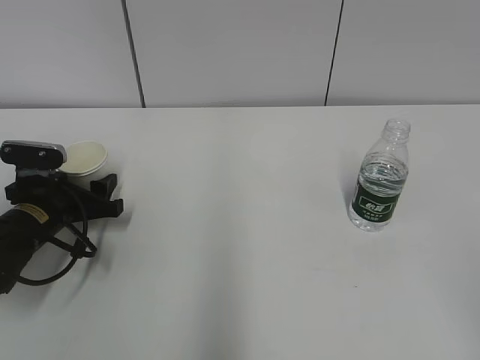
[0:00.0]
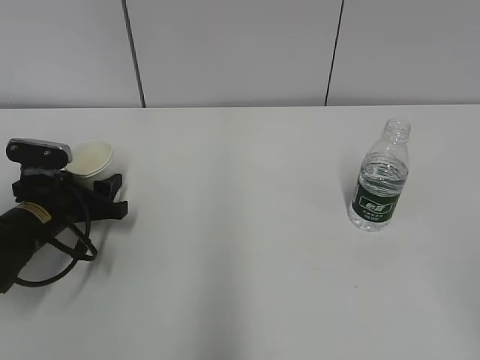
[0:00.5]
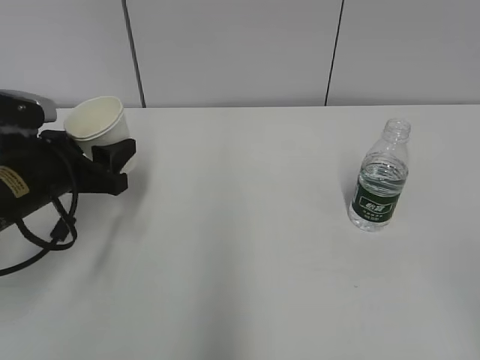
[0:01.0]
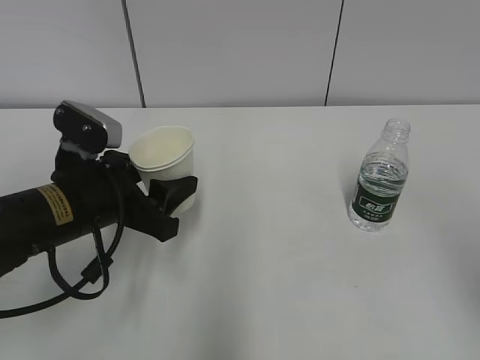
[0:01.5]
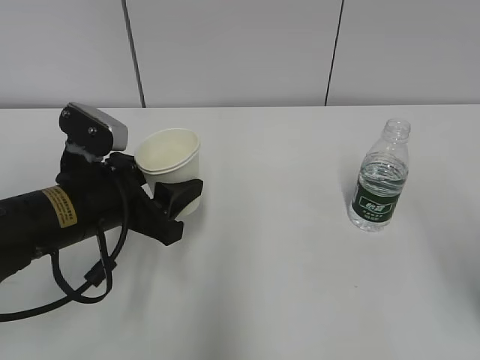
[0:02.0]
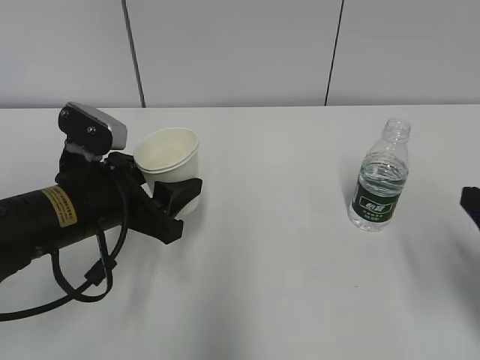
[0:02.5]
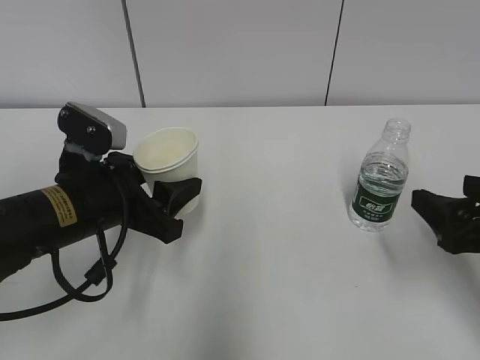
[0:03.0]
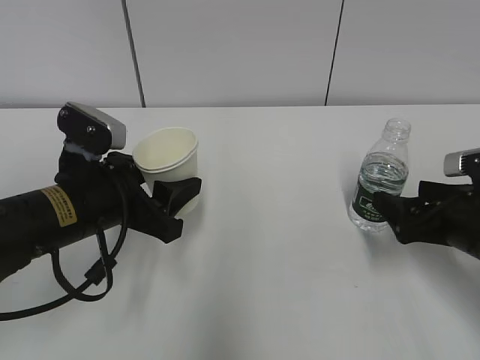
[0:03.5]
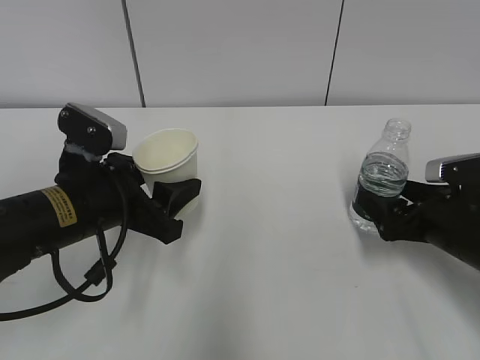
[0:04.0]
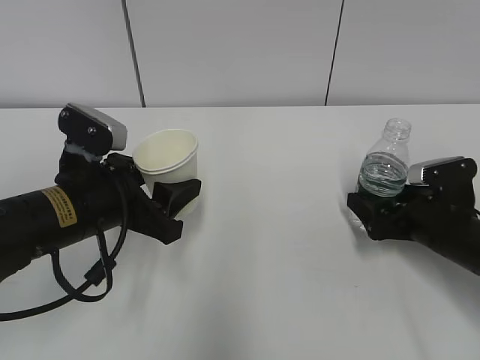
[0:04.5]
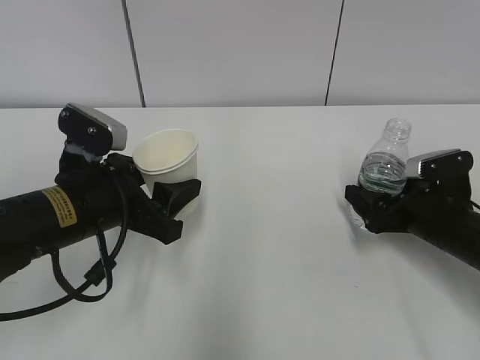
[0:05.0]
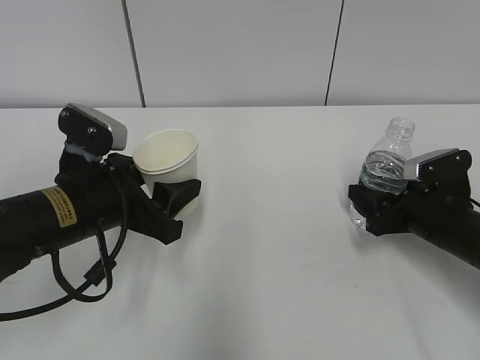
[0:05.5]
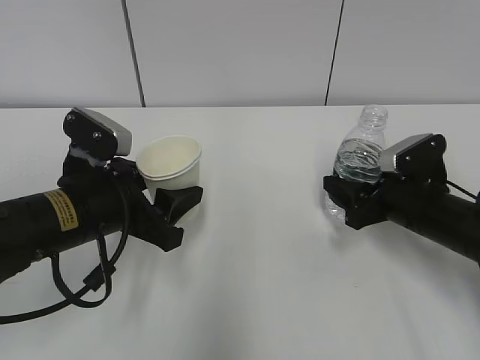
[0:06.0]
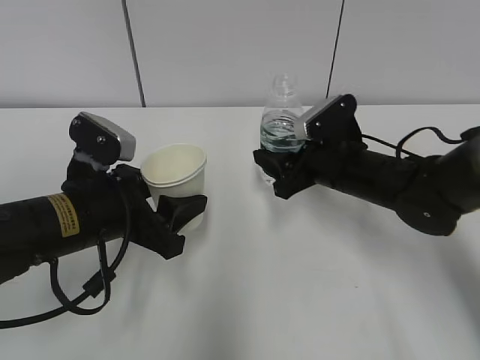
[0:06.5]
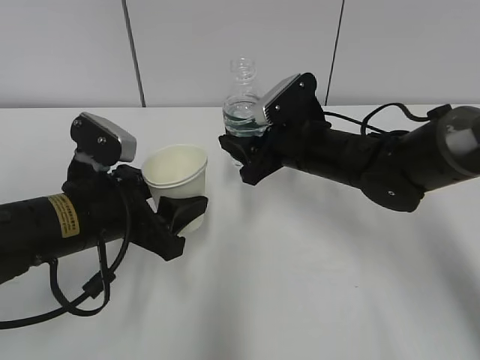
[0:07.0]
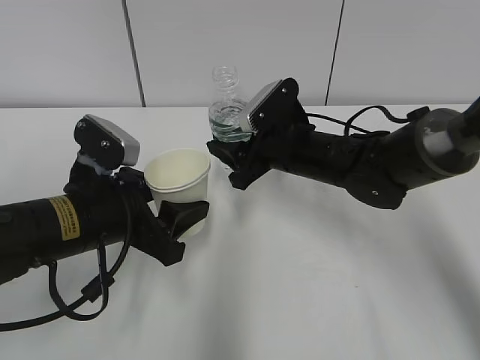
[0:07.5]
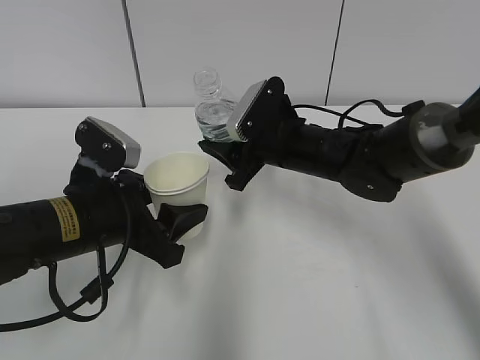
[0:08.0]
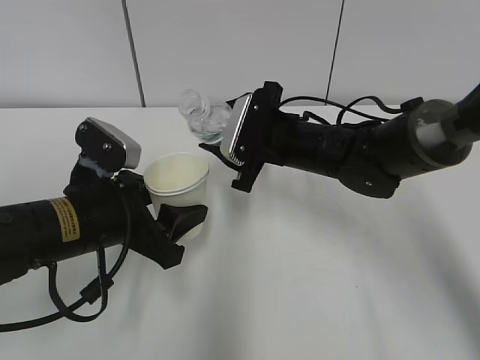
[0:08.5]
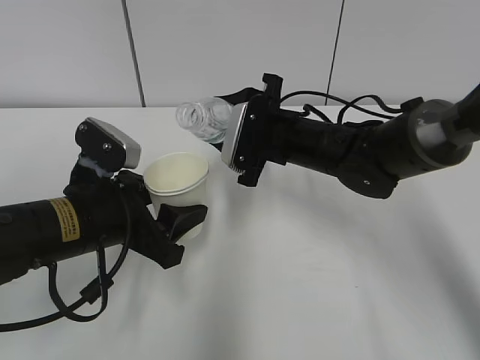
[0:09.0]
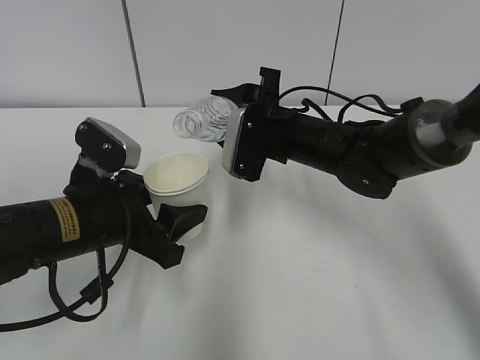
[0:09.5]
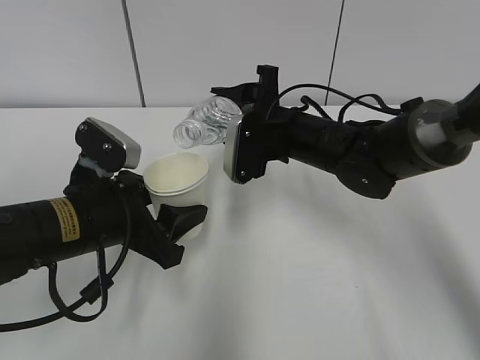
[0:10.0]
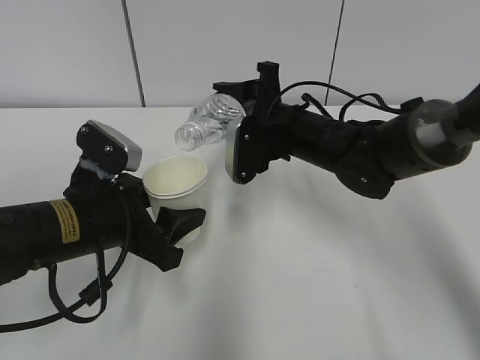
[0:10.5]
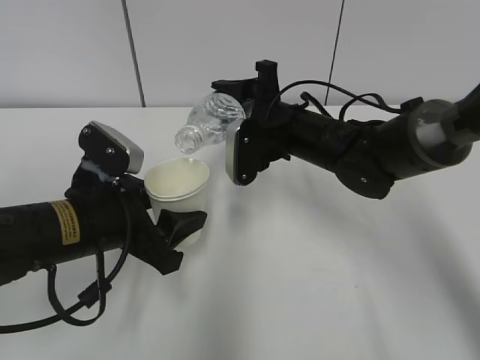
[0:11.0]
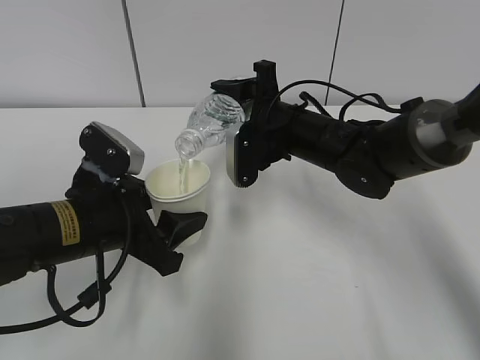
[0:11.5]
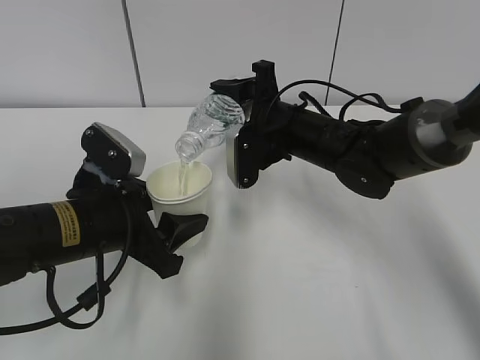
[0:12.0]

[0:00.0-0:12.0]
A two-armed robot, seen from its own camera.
Step, 0:00.0 to 0:03.5: Grab the water bottle with the right hand.
0:00.0 to 0:02.0: The left gripper moves to the right, upward and backward, roughly 15 cm; the right gripper shifts some 15 cm forward.
0:02.0 to 0:04.0: The right gripper goes some 25 cm forward and downward, and opens up.
0:04.0 to 0:06.0: The right gripper closes.
0:06.0 to 0:08.0: The right gripper heads to the left and forward, covering approximately 15 cm.
0:10.0 to 0:12.0: The grippers move only a little.

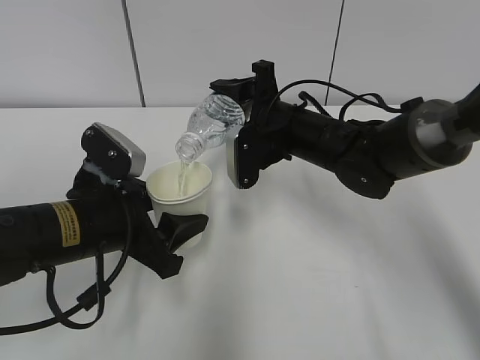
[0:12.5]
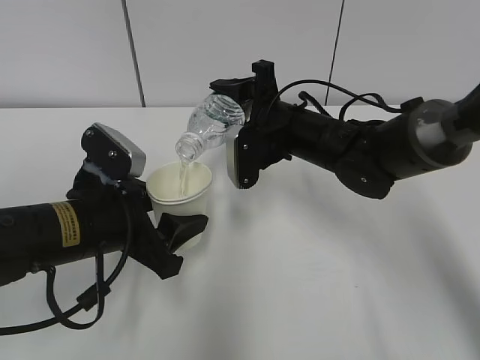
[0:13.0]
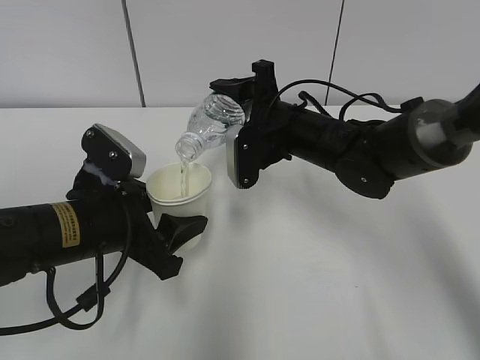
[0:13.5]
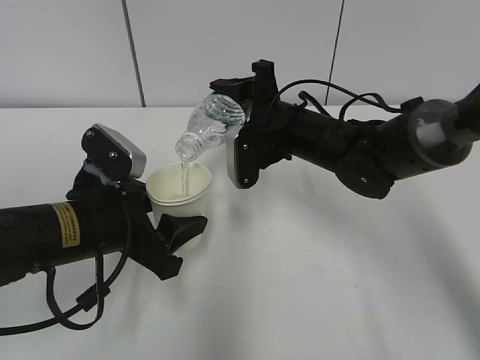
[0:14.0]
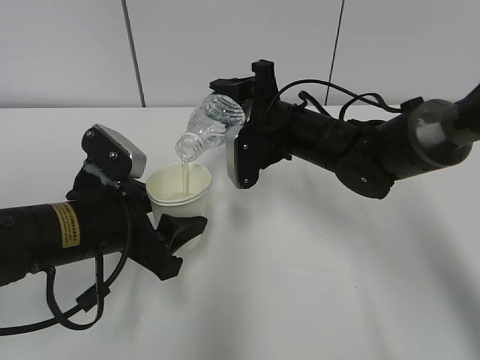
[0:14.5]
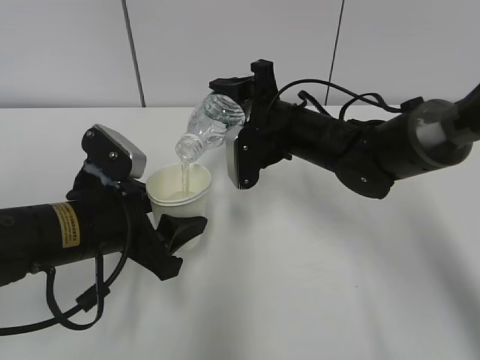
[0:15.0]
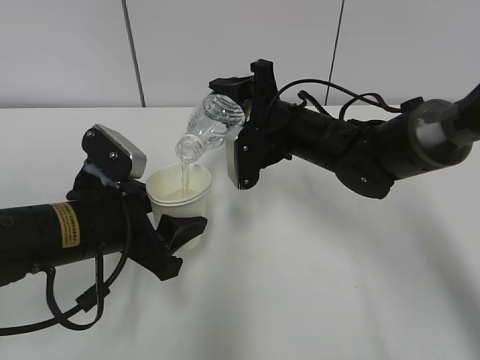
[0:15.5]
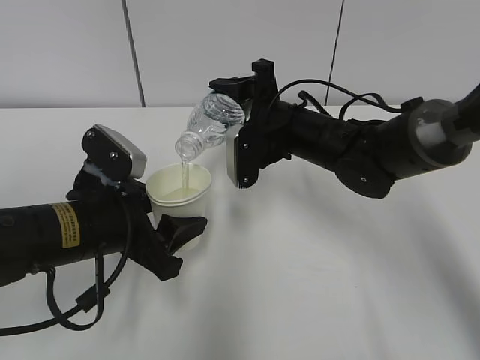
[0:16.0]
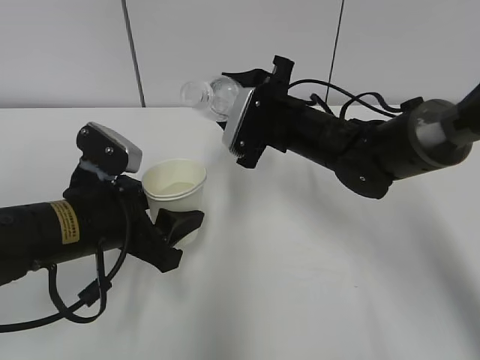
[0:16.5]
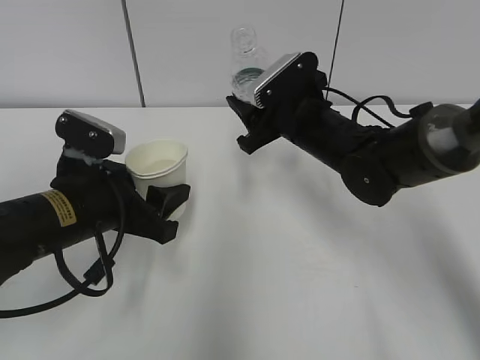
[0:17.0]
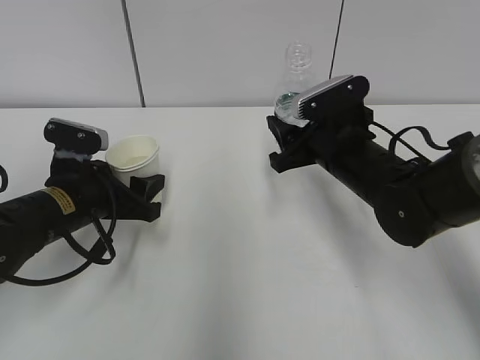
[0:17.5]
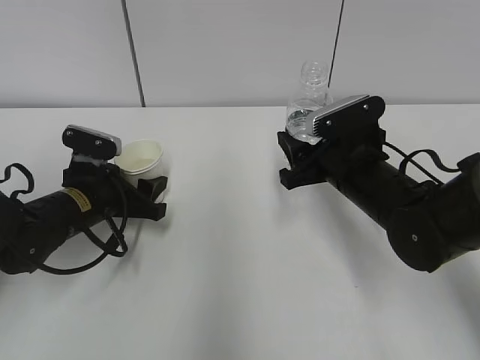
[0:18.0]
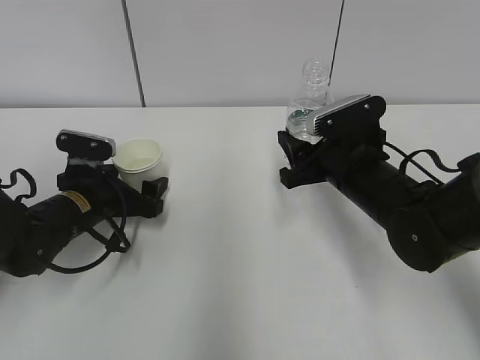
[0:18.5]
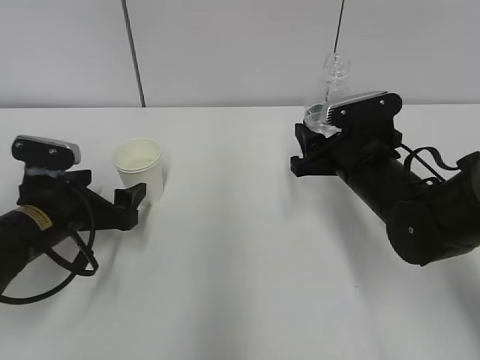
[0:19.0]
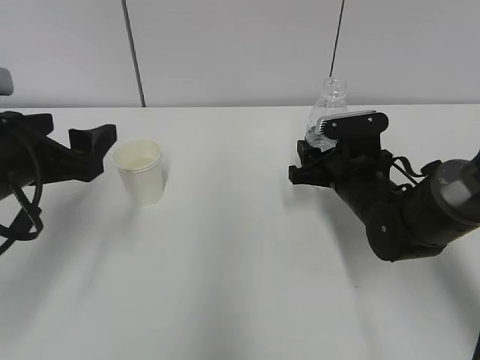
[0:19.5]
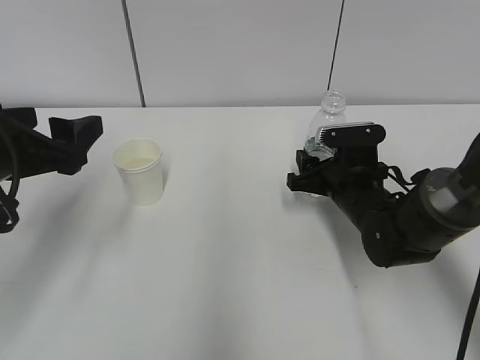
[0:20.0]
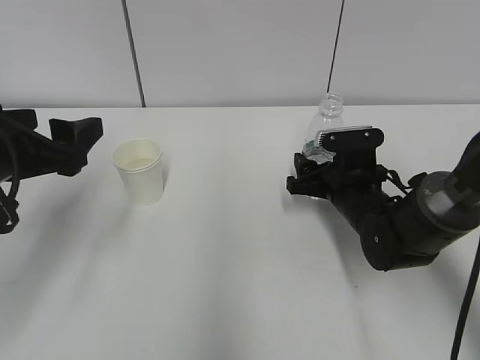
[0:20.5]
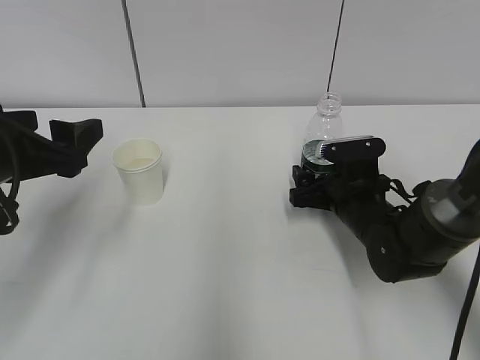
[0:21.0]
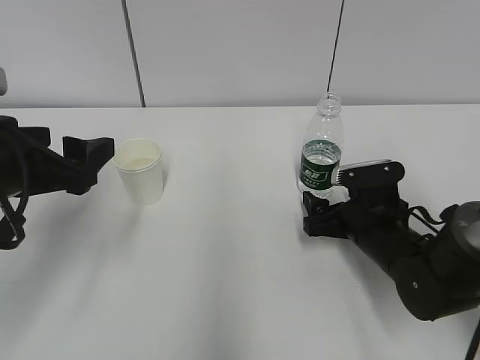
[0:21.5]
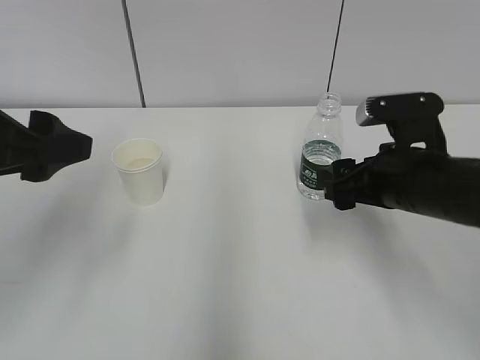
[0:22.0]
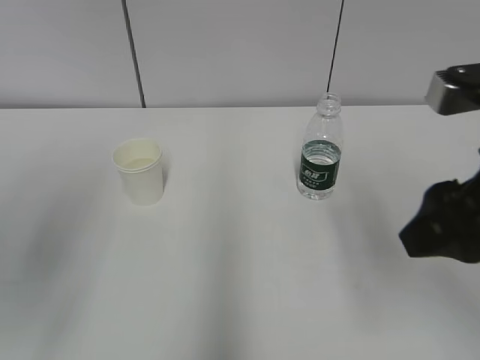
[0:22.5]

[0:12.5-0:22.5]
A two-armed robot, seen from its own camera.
0:12.5 to 0:14.5: Both grippers stay about where they are.
0:16.5 to 0:18.5: The right gripper shifts approximately 10 cm backward and to the right; the left gripper is displaced forward and downward by about 10 cm, and opens up.
0:18.5 to 0:20.5: The right gripper shifts approximately 5 cm downward. The left gripper shifts approximately 20 cm upward and backward.
0:20.5 to 0:22.5: The left gripper travels upward and backward by approximately 15 cm. Meanwhile the right gripper goes roughly 30 cm upward and backward, and opens and closes again.
